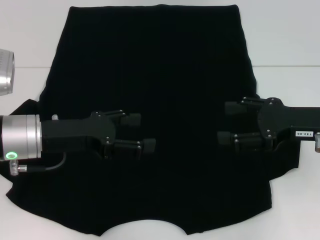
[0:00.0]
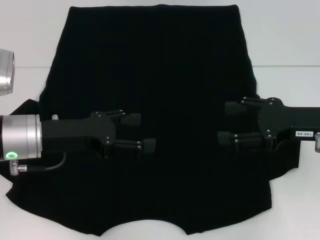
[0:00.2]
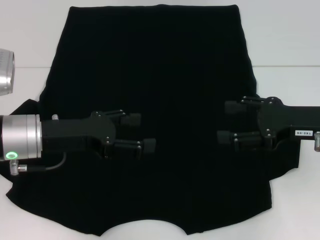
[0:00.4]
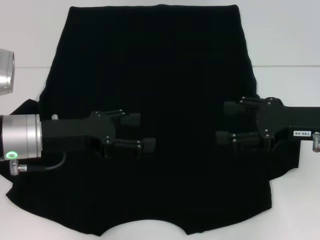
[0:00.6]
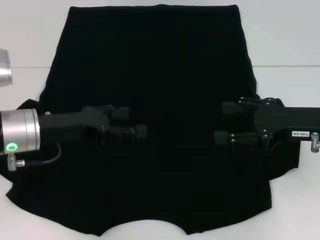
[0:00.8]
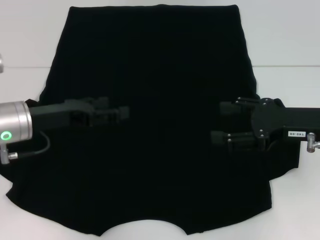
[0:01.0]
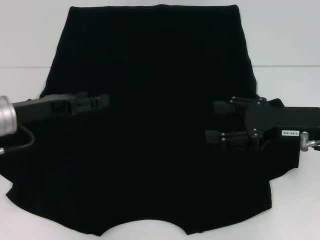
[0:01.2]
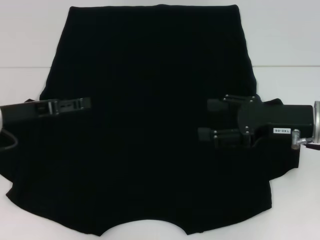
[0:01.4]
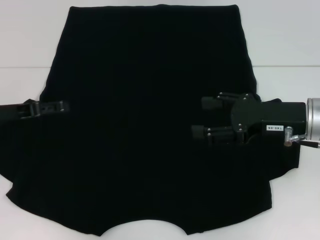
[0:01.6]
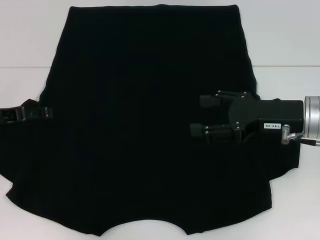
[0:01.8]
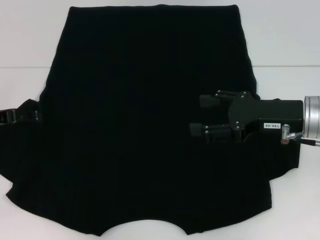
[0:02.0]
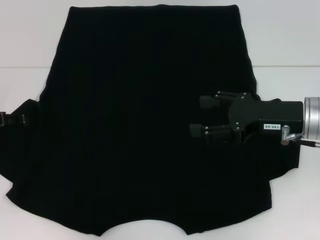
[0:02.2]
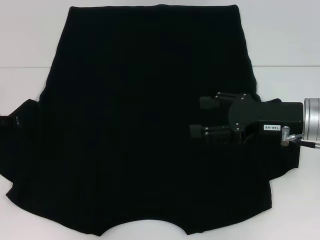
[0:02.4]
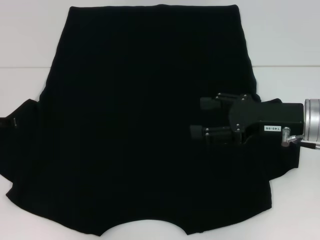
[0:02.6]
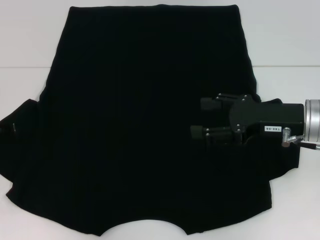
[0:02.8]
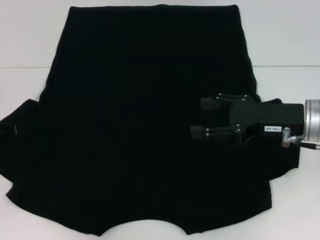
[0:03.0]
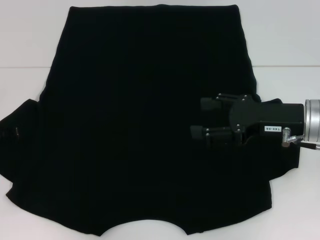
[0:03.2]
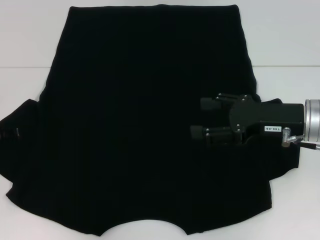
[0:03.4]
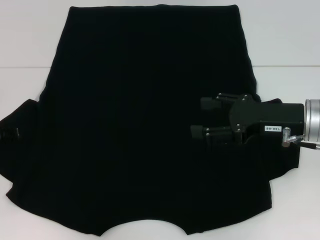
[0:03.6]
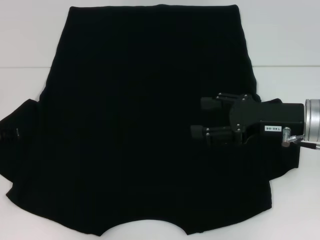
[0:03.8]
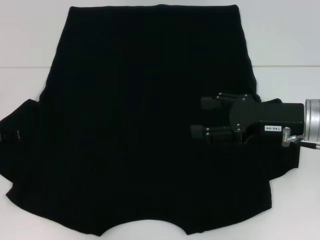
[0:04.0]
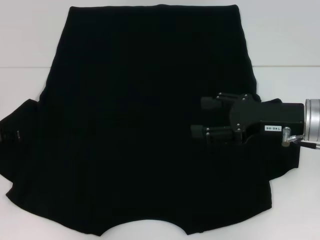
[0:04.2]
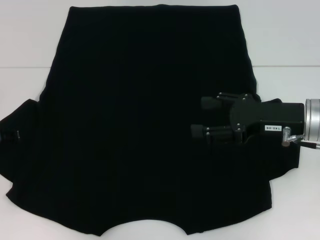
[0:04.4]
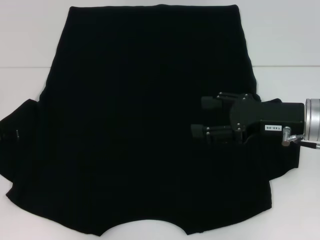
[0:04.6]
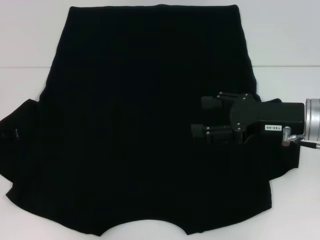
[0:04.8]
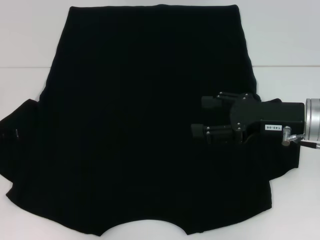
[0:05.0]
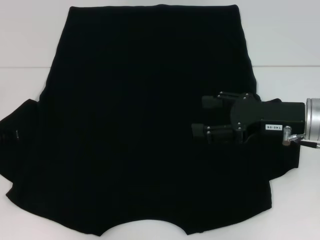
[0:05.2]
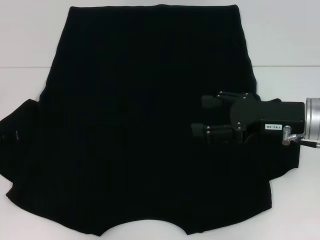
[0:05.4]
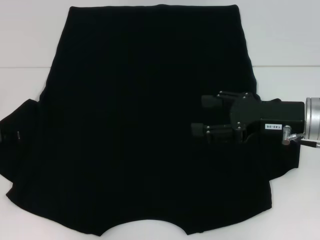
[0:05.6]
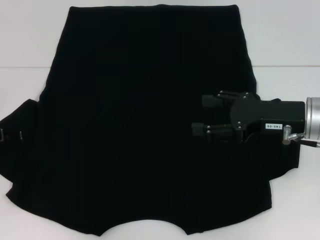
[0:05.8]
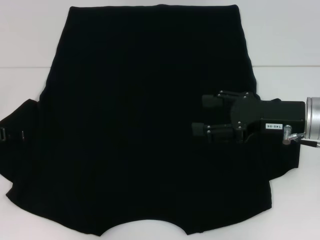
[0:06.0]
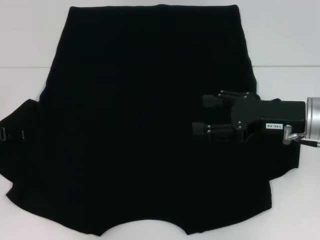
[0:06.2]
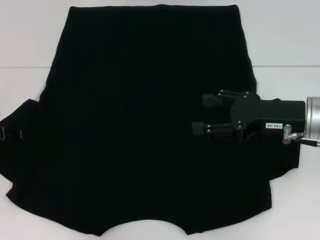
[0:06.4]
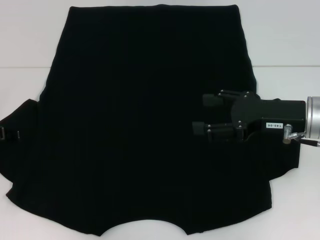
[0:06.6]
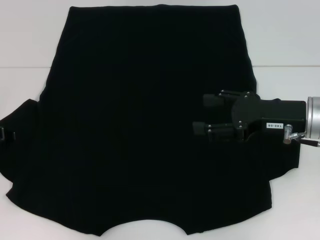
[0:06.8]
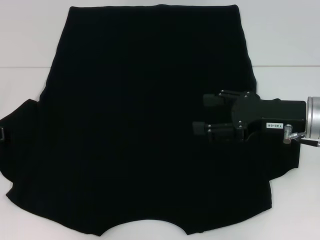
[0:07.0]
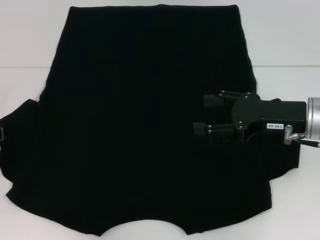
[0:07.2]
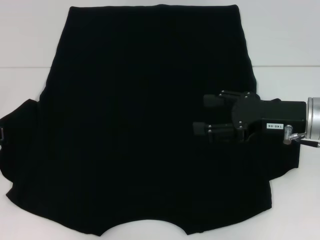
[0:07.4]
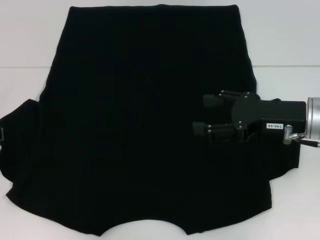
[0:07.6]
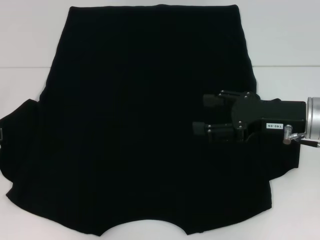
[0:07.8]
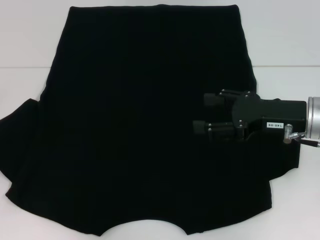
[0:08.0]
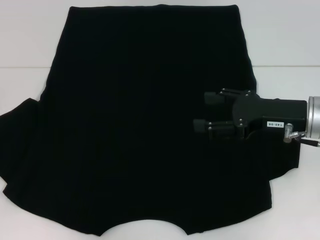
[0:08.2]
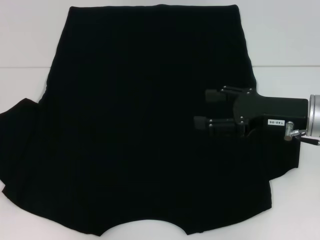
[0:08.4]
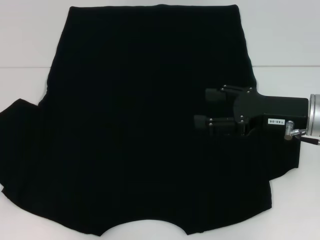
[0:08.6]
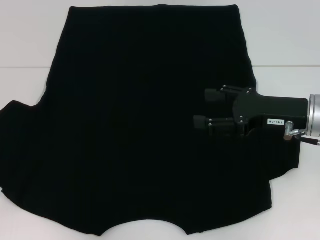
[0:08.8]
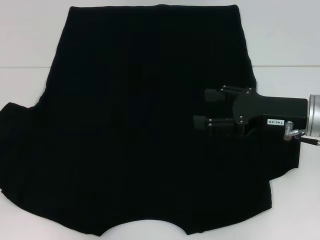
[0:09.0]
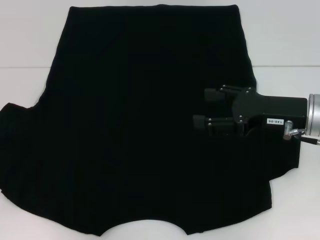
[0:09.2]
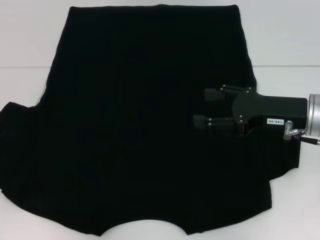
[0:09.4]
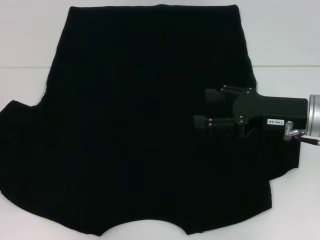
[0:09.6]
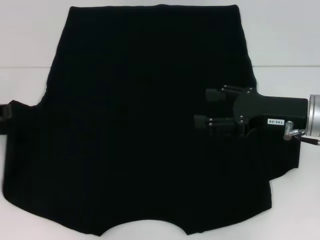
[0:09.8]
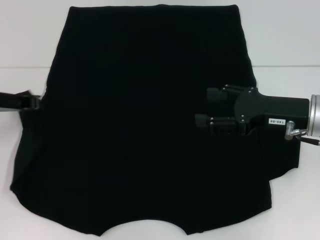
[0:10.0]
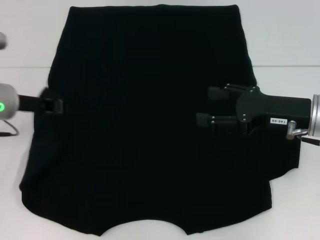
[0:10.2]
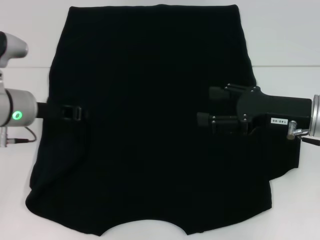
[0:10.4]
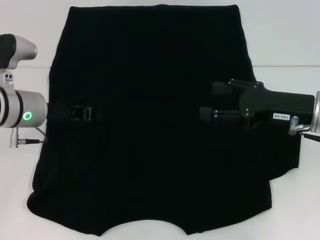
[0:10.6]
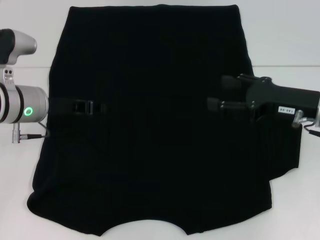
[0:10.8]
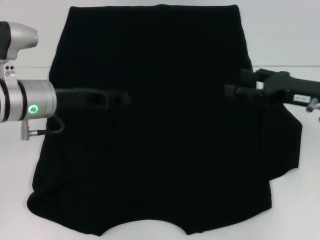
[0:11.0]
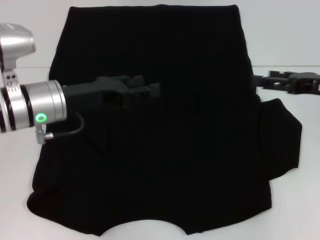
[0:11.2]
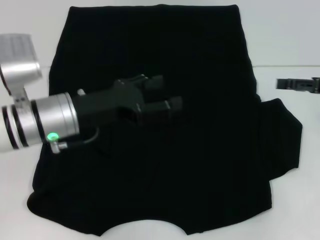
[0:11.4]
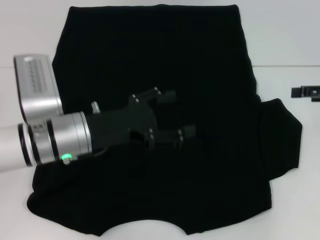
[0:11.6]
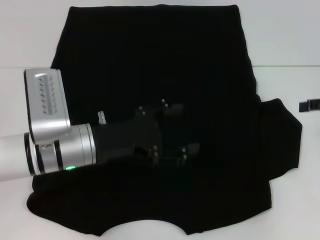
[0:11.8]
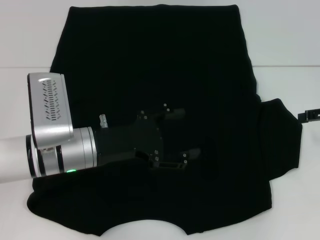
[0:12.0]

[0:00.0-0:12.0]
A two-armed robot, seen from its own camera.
Step, 0:00.0 to 0:11.0: Fold the bottom left sleeve with your left hand.
0:00.0 to 0:01.6: The left gripper heads to the left, covering some 10 cm.
0:03.0 to 0:06.0: The two grippers keep their place.
0:07.6 to 0:09.0: The grippers make only small movements.
0:09.0 to 0:10.4: The left gripper shifts about 15 cm to the right.
0:10.4 to 0:12.0: The right gripper shifts about 10 cm to the right; the left gripper is displaced to the right and backward by approximately 10 cm, and opens up.

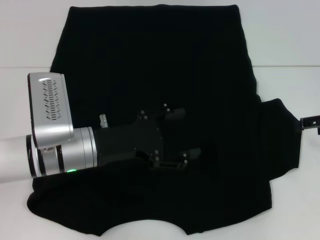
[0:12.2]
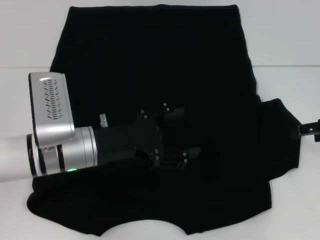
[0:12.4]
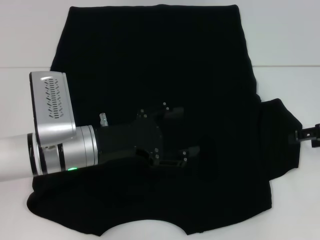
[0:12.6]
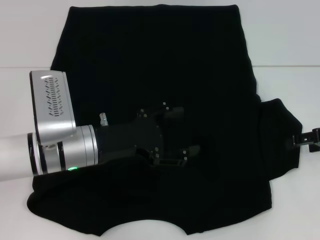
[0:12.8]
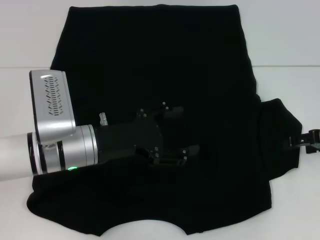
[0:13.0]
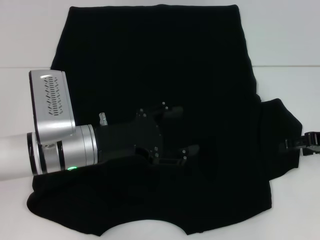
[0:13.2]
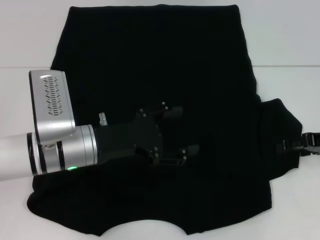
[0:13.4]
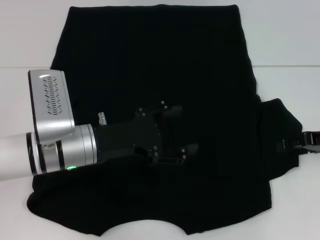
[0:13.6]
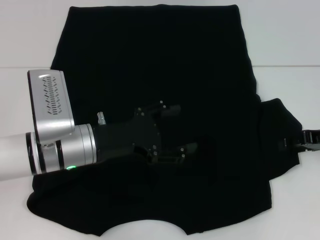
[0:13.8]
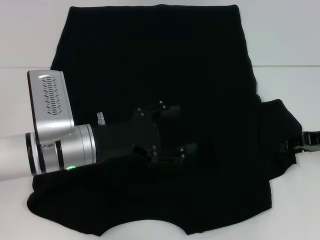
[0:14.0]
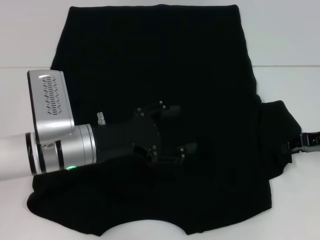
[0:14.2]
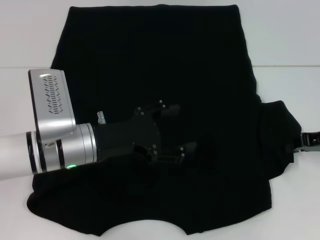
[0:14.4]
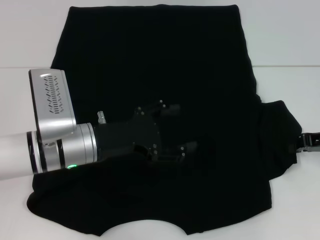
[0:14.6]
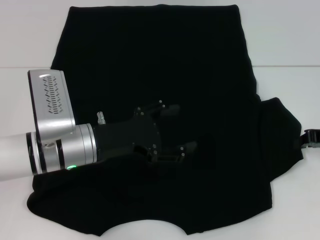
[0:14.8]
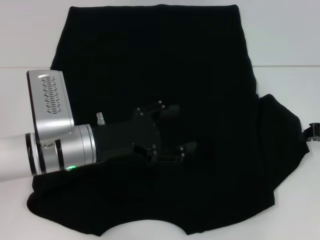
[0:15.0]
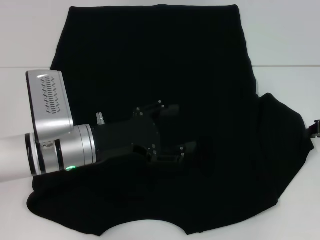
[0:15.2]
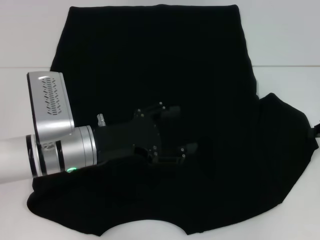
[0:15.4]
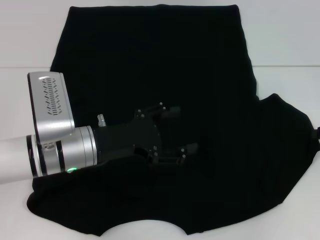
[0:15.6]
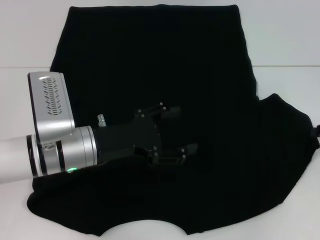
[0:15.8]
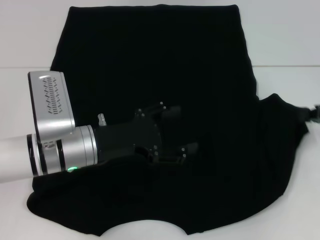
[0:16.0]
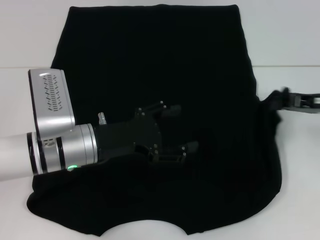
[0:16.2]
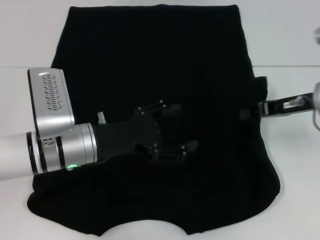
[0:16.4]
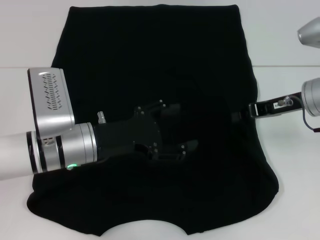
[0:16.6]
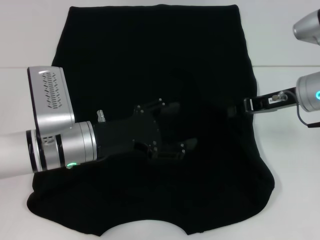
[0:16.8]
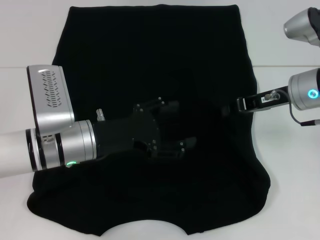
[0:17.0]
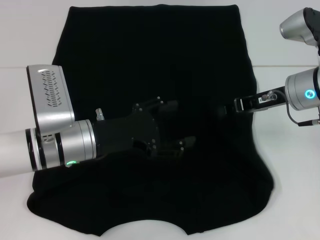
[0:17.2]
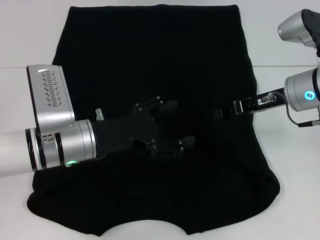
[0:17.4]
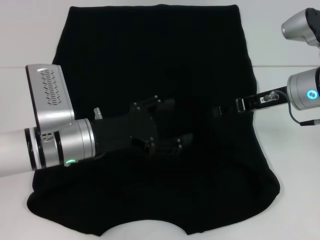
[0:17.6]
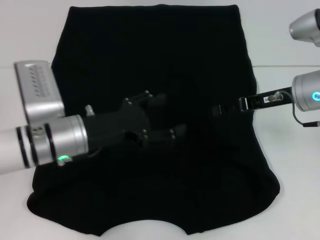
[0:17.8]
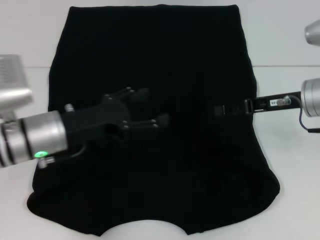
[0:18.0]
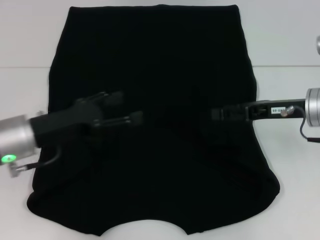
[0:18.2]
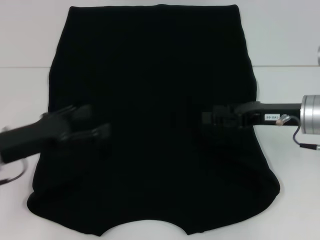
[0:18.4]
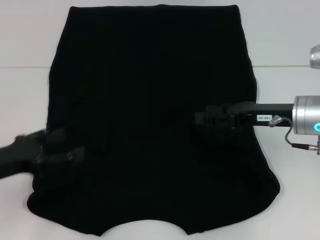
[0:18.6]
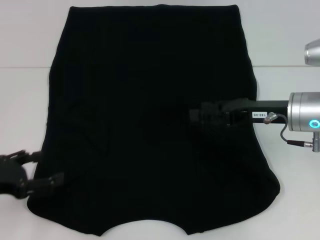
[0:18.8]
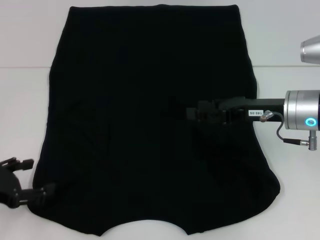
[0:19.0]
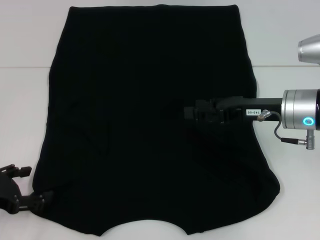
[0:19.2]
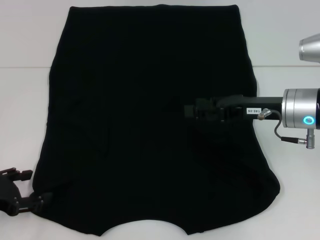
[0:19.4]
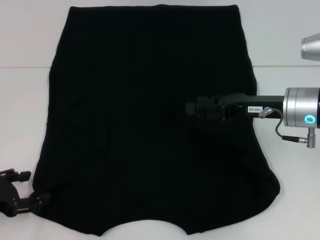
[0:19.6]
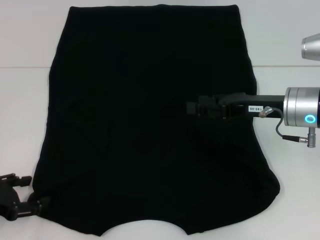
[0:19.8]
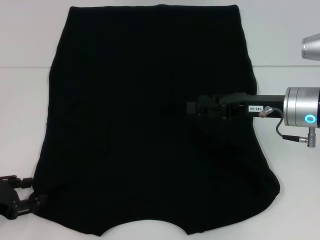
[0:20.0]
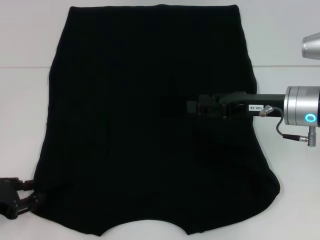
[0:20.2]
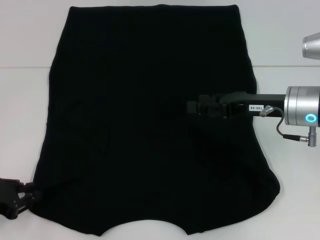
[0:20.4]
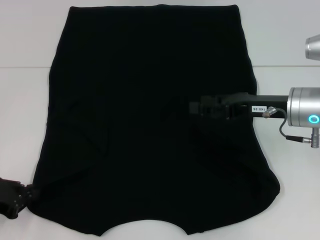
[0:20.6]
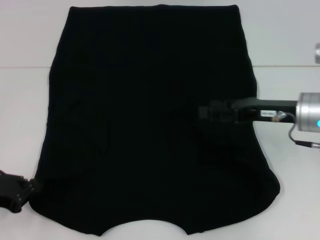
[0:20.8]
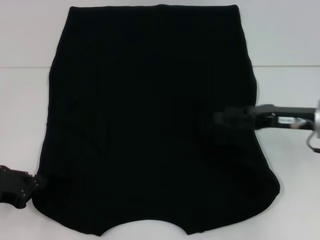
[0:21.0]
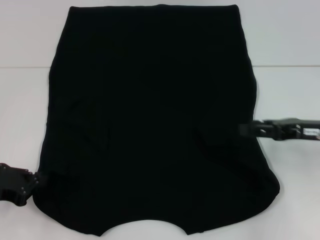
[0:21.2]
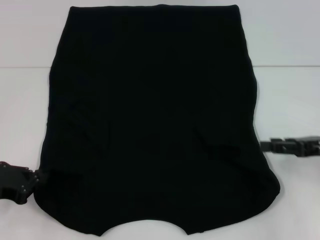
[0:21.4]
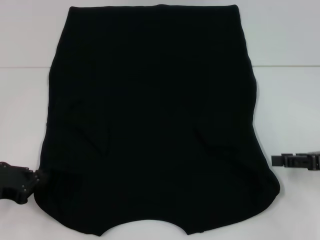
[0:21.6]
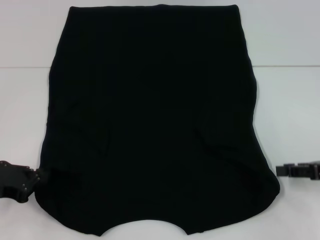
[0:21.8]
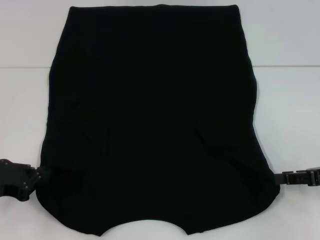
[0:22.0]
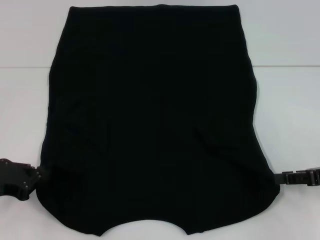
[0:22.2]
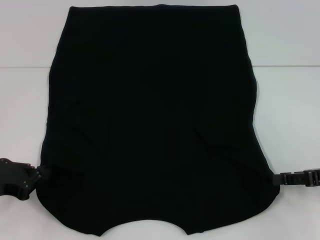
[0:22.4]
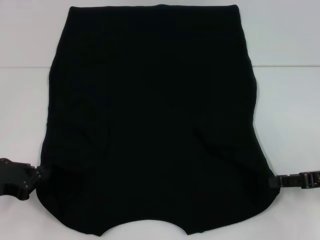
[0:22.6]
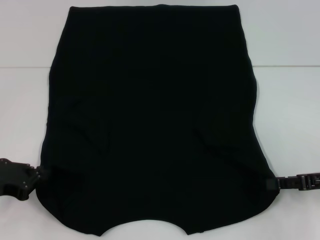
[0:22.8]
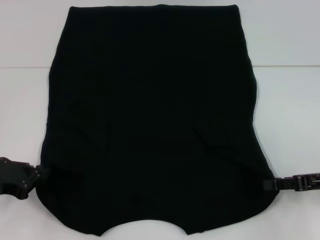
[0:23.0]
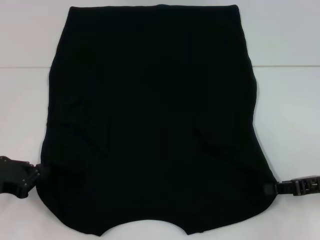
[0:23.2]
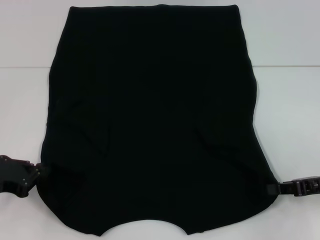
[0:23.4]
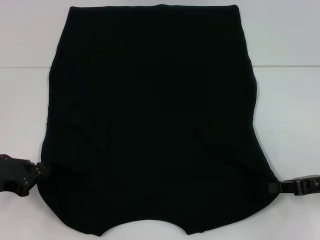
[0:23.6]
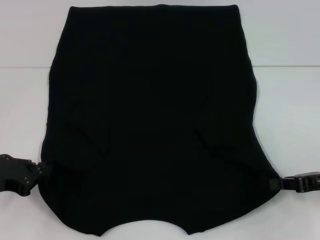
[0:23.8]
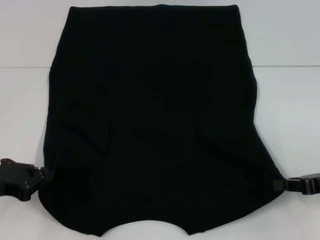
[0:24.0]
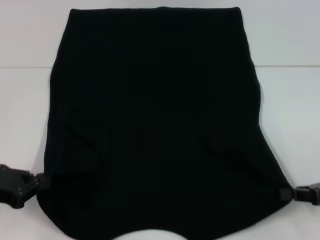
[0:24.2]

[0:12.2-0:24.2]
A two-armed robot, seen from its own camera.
Step, 0:12.2 to 0:17.6: Fold the bottom right sleeve with your right hand.
Step, 0:17.8 to 0:24.0: Grab the bottom left corner with your left hand.
Step, 0:17.8 to 0:24.0: Grab the bottom right corner with your right hand.
0:12.2 to 0:13.8: The grippers make only small movements.
0:13.8 to 0:15.2: The right gripper closes its fingers.
0:15.2 to 0:16.6: The right gripper travels to the left by approximately 10 cm.
0:16.6 to 0:18.2: The left gripper shifts some 5 cm to the left; the right gripper opens.
0:18.2 to 0:19.8: The left gripper travels to the left and backward by approximately 15 cm.
0:19.8 to 0:21.2: The right gripper moves to the right, some 10 cm. Meanwhile the left gripper closes its fingers.
0:21.2 to 0:22.6: The right gripper moves roughly 5 cm.
0:22.6 to 0:24.2: The right gripper closes.
